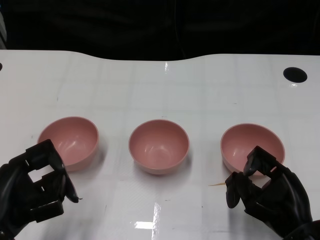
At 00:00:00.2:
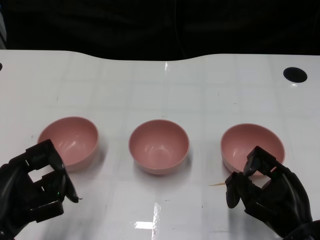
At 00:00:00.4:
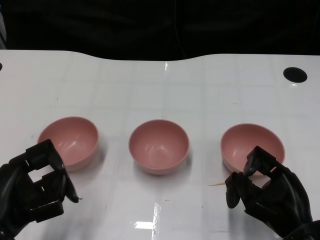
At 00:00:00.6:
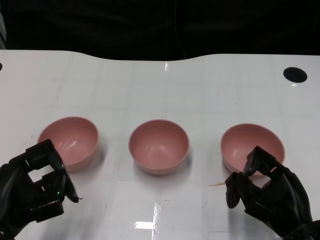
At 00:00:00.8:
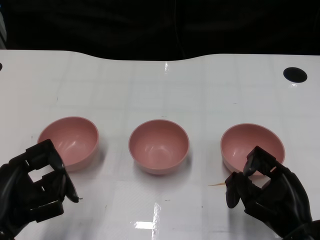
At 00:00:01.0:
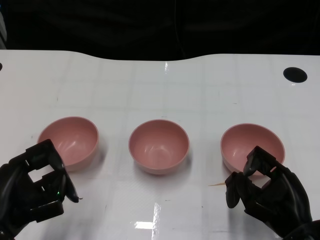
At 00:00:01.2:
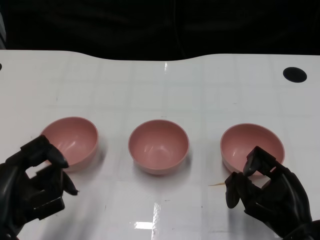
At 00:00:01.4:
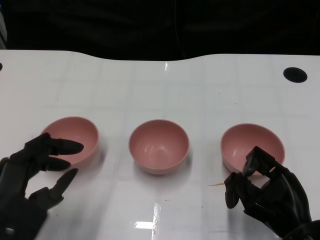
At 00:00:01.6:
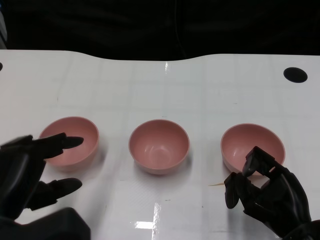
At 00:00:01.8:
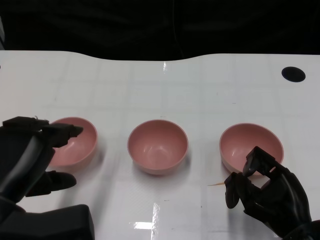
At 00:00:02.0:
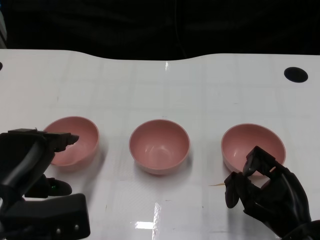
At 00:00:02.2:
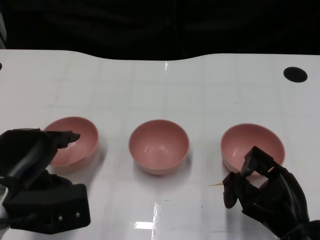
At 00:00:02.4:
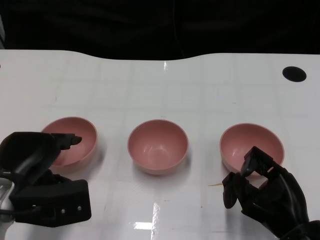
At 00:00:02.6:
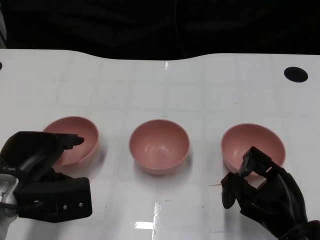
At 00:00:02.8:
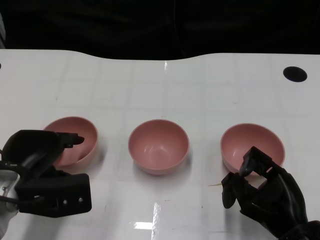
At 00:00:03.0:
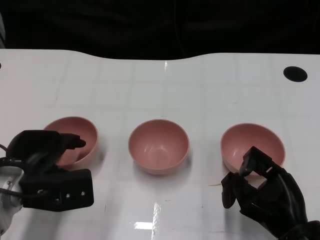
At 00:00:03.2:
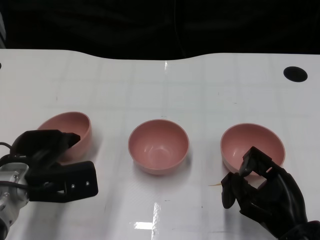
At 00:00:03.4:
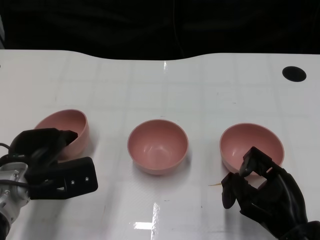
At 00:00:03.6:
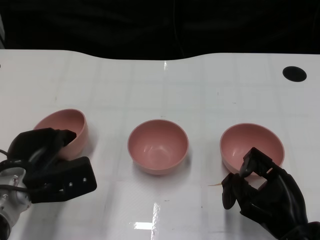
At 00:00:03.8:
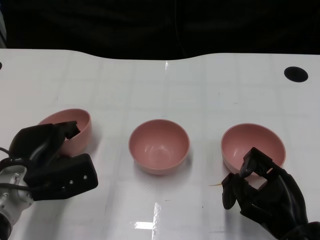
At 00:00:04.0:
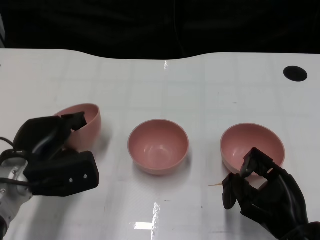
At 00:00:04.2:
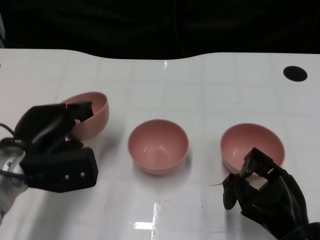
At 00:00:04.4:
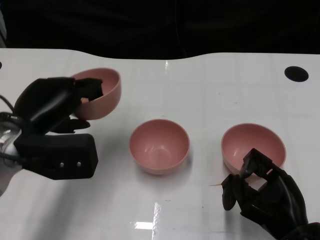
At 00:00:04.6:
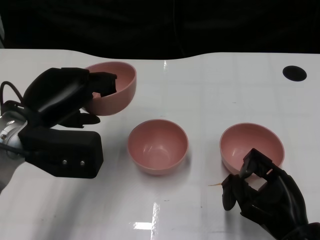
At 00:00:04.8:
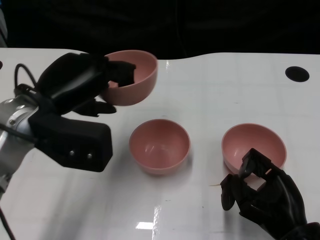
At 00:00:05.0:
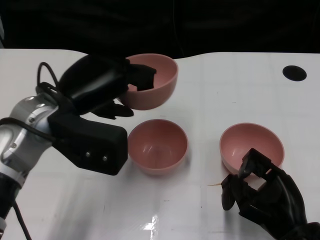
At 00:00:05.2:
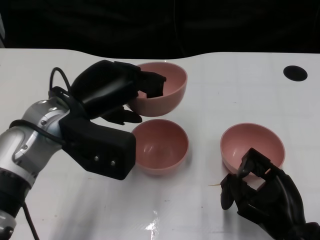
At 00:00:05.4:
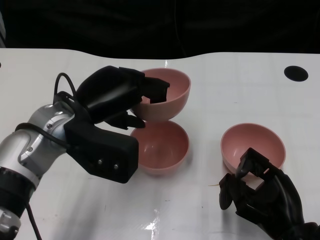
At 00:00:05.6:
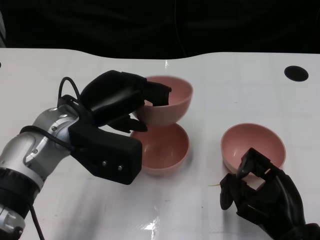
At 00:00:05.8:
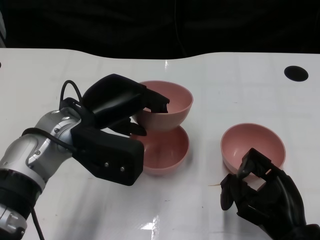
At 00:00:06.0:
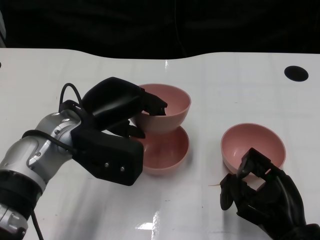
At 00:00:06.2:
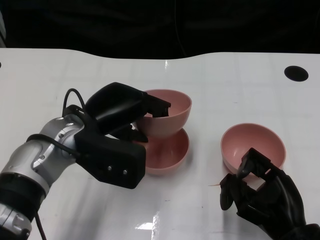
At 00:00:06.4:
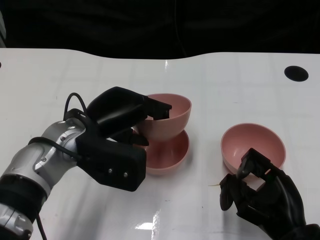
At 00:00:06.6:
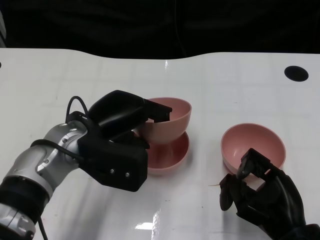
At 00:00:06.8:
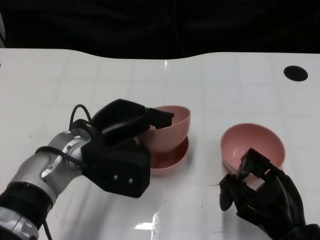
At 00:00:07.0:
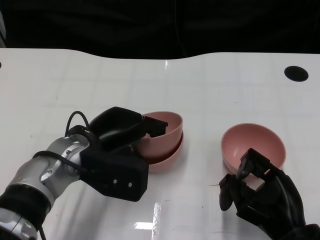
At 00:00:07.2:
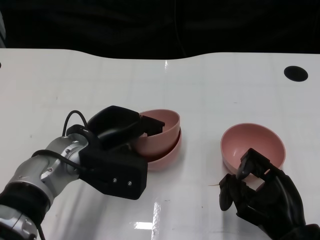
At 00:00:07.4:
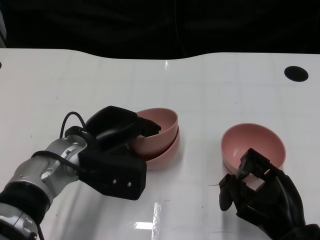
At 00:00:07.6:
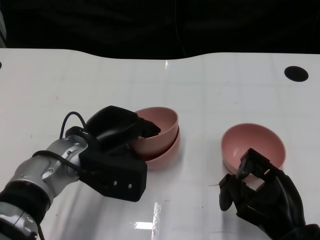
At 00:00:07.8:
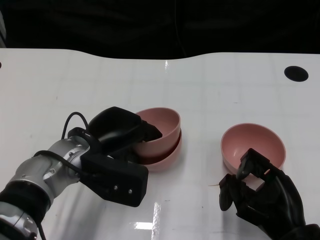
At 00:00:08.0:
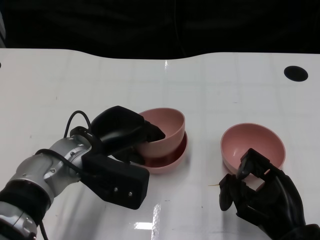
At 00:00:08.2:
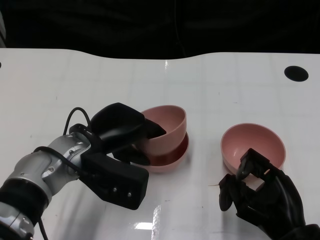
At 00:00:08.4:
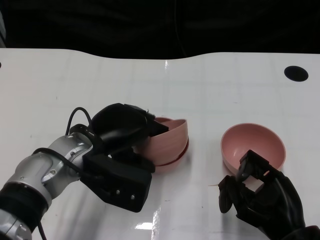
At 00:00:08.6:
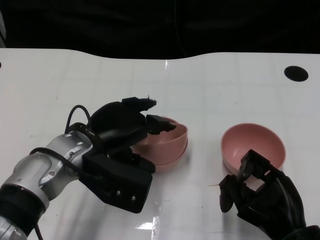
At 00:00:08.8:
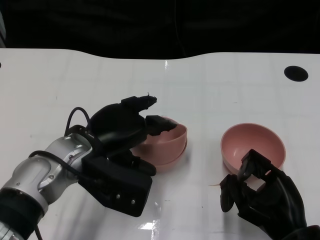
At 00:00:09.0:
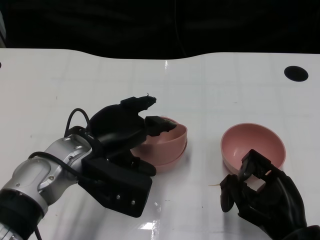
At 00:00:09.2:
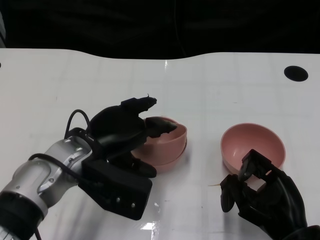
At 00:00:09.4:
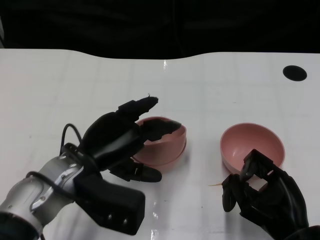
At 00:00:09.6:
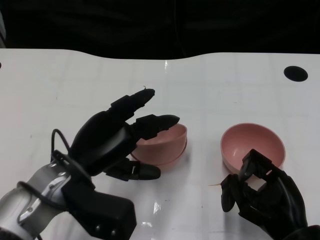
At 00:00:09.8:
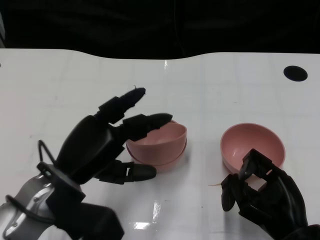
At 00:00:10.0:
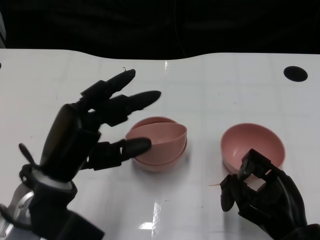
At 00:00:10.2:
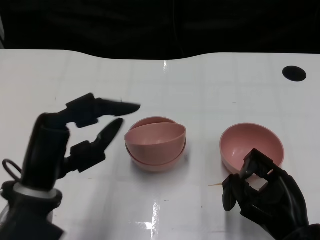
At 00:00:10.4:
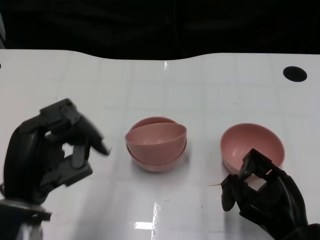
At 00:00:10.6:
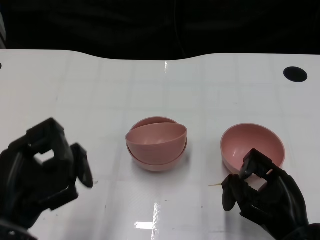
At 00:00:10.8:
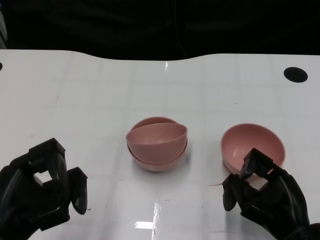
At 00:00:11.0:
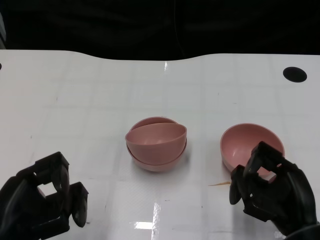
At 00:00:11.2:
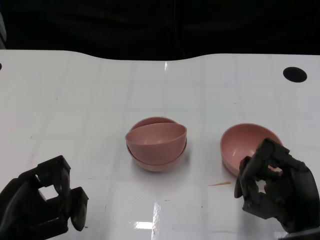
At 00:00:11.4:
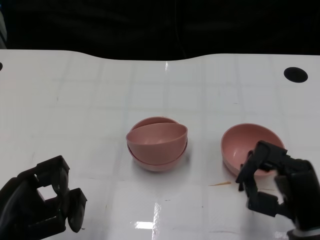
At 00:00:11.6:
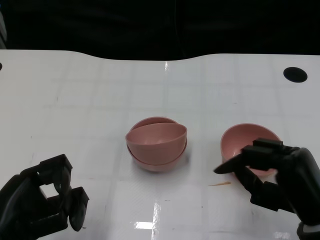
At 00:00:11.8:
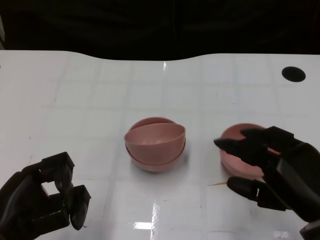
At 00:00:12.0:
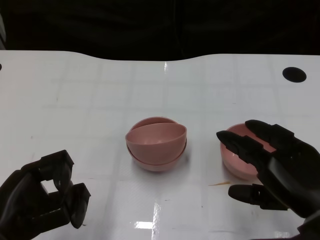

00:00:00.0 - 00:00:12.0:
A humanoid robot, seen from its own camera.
Task of the whole recording: Pick up the bowl on one side of the table and place it on top of the middle bowl, then pick up the bowl on the other side of the table and place it on top of the middle bowls.
Step, 00:00:01.2 - 00:00:03.8: Grasp the bowl on the left with the left gripper.
Step, 00:00:04.2 - 00:00:09.0: Place the bowl on the left onto the bowl in the middle with left gripper.
00:00:01.6 - 00:00:03.0: The left hand moves forward and downward, roughly 10 cm.
00:00:03.0 - 00:00:04.4: The left hand shifts some 5 cm upward.
00:00:04.4 - 00:00:06.0: The left hand shifts some 5 cm to the right.
00:00:06.0 - 00:00:07.6: The left hand goes roughly 5 cm downward.
00:00:07.6 - 00:00:09.0: The hands stay close to where they were, moving slightly.
00:00:09.0 - 00:00:10.4: The left hand is displaced backward and to the left by some 10 cm.
00:00:10.4 - 00:00:12.0: The right hand shifts roughly 10 cm upward. Meanwhile the left hand moves about 5 cm.

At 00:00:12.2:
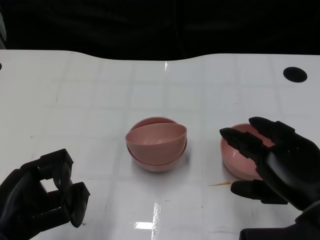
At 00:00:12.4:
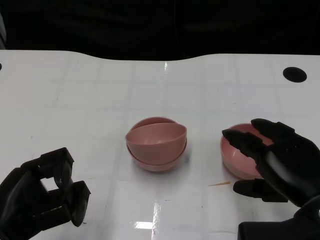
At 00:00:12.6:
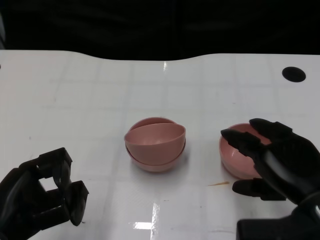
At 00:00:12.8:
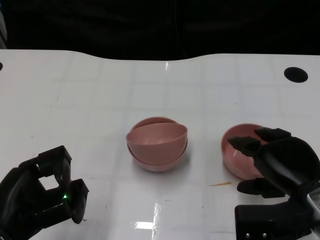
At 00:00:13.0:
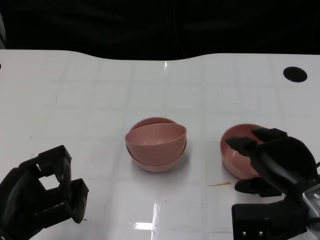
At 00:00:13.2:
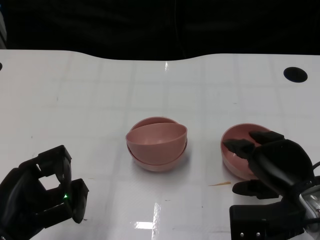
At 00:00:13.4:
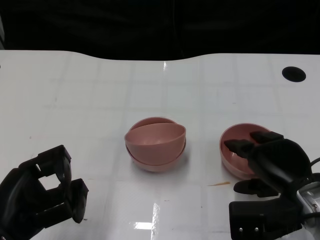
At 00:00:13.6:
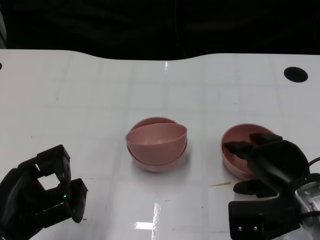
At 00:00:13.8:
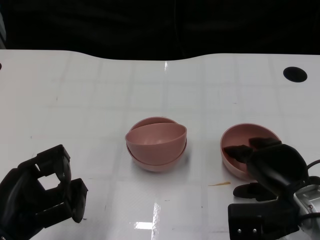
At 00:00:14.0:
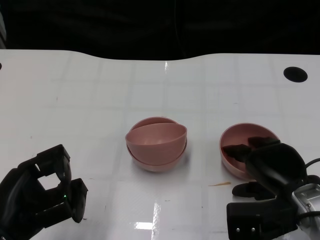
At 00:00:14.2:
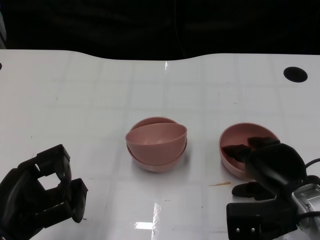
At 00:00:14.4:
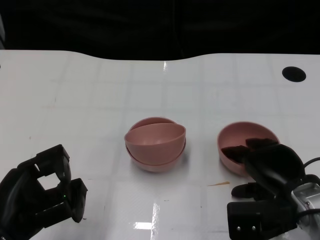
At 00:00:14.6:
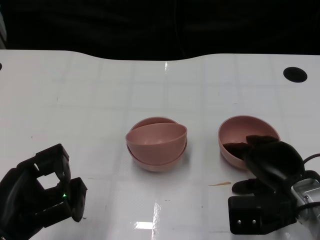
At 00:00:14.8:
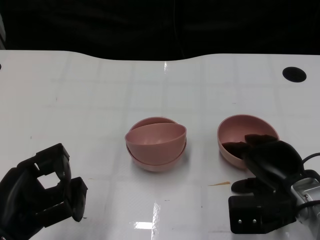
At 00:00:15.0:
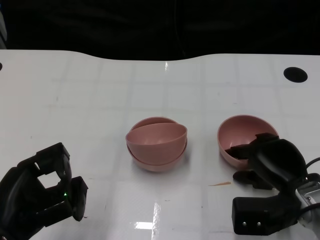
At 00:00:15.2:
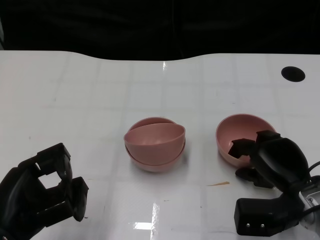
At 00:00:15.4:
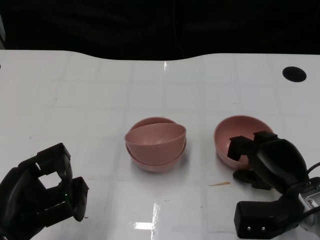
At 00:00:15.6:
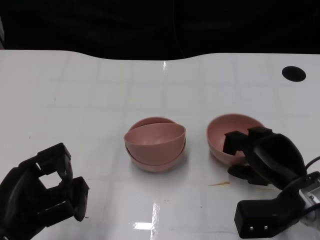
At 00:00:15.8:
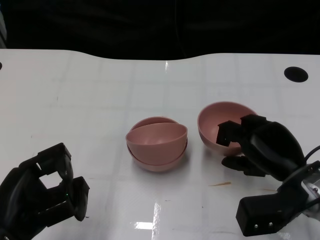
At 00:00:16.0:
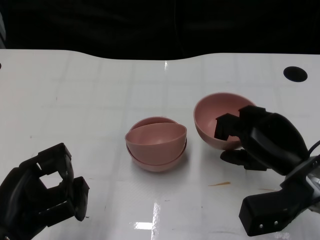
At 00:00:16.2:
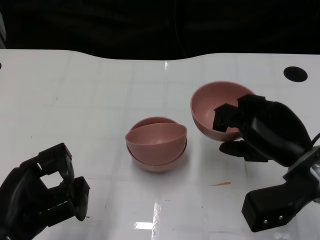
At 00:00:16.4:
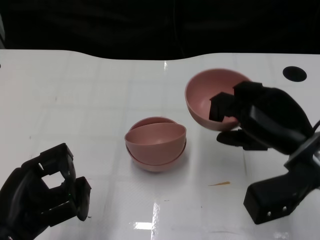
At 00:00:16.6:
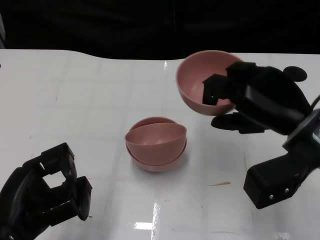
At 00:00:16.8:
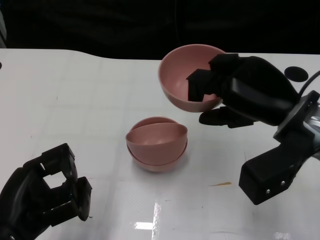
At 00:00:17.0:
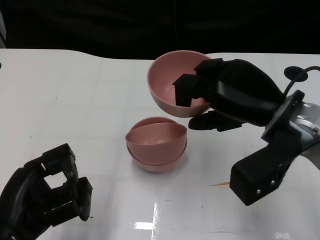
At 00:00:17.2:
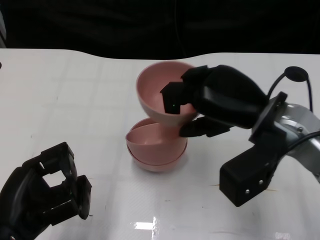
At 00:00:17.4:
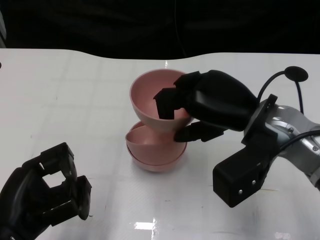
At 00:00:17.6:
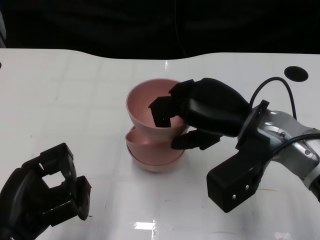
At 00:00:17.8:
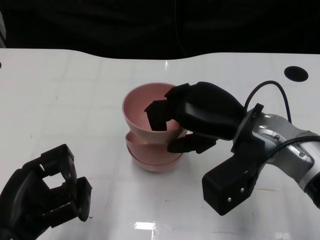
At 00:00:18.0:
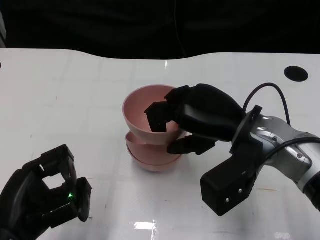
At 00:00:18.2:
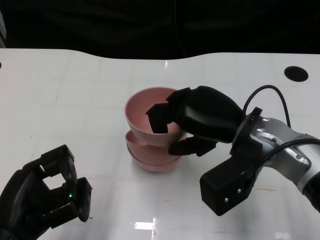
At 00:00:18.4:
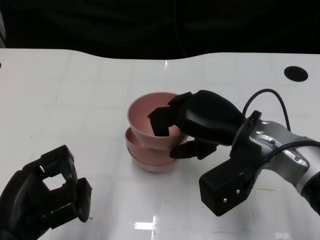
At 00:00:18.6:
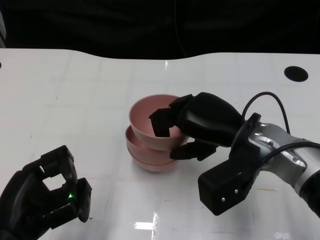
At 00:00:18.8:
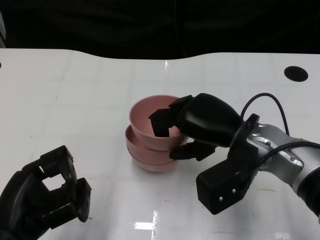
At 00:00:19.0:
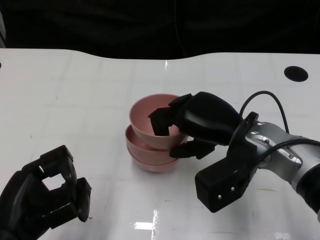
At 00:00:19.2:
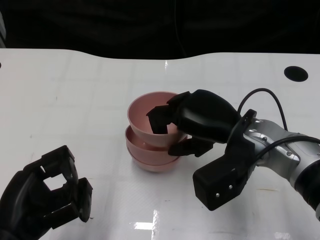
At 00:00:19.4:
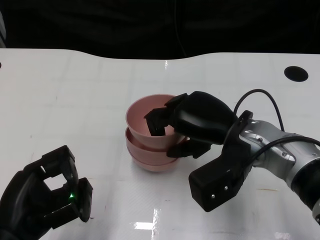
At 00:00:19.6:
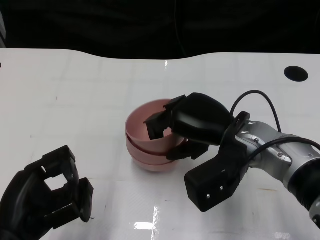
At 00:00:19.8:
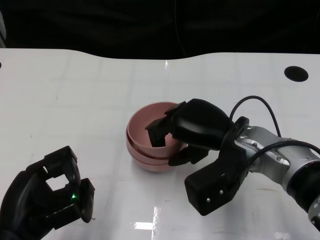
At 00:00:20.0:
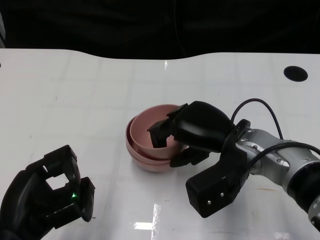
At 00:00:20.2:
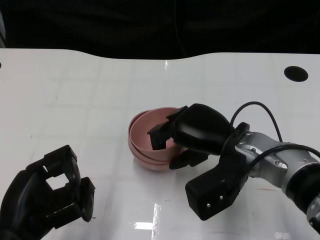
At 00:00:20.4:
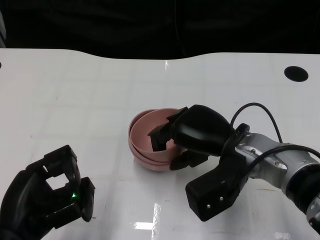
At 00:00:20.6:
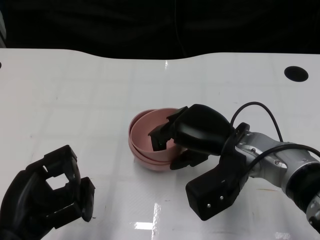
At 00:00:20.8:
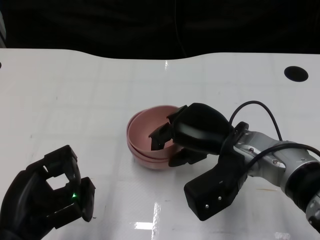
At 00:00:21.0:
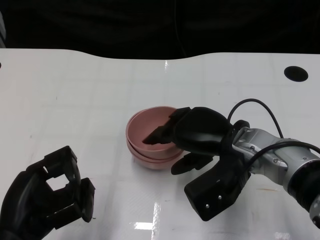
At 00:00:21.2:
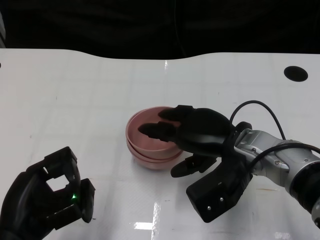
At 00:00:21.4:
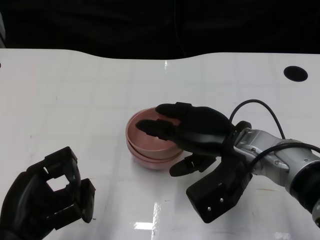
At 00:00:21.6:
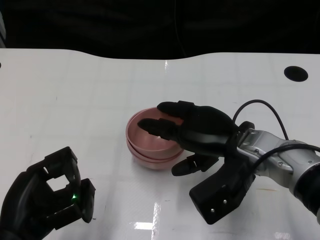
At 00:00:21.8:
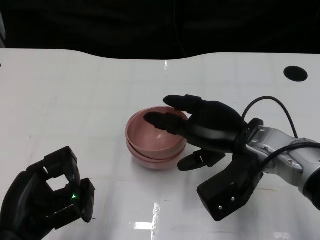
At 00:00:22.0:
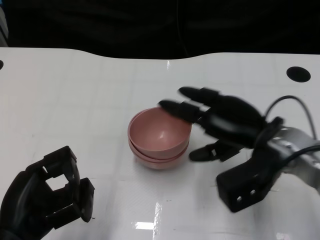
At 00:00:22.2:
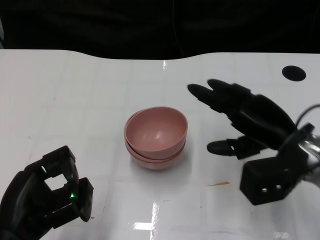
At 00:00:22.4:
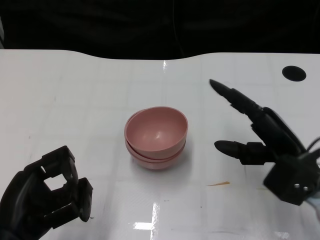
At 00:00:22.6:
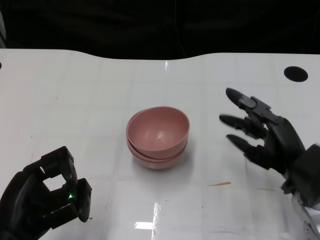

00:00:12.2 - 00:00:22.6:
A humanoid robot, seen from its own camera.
Task of the whole recording: Pick up the bowl on one side of the table and place it on top of the middle bowl, then pick up the bowl on the other side of the table and place it on top of the middle bowls.
Step, 00:00:12.2 - 00:00:15.6: Grasp the bowl on the right with the right gripper.
Step, 00:00:15.8 - 00:00:21.4: Place the bowl on the right onto the bowl in the middle with right gripper.
00:00:12.2 - 00:00:13.6: The right hand heads forward and downward, covering roughly 10 cm.
00:00:13.6 - 00:00:15.2: The hands make only small movements.
00:00:15.2 - 00:00:16.6: The right hand goes about 15 cm upward.
00:00:16.6 - 00:00:18.2: The right hand shifts roughly 5 cm to the left.
00:00:18.2 - 00:00:21.2: The hands stay close to where they were, moving slightly.
00:00:21.2 - 00:00:22.6: The right hand moves to the right, about 10 cm.
